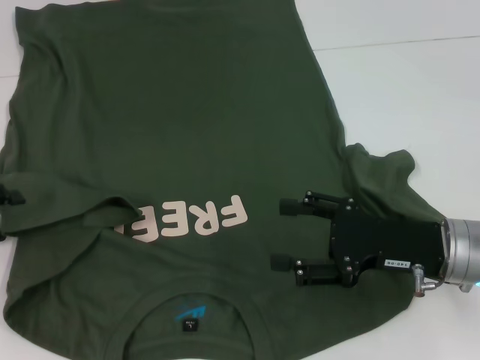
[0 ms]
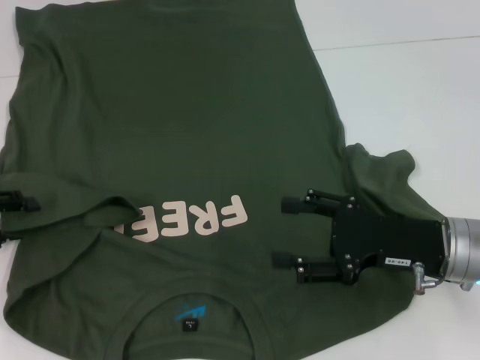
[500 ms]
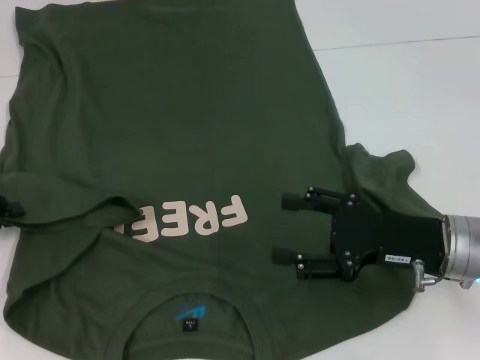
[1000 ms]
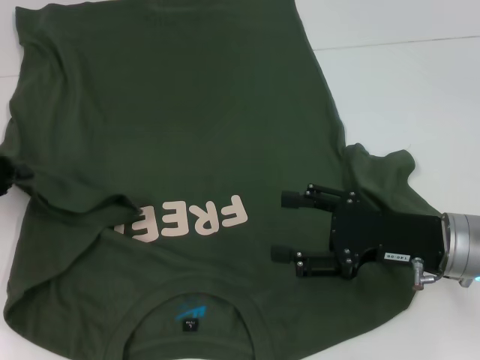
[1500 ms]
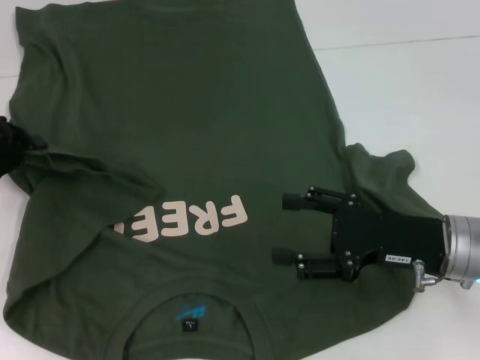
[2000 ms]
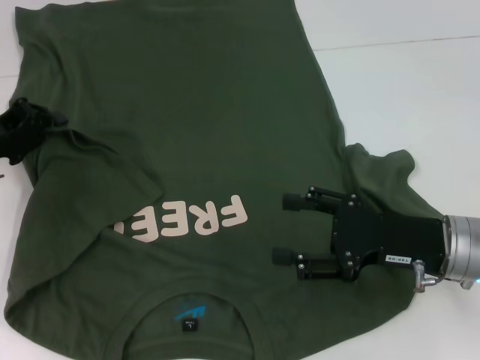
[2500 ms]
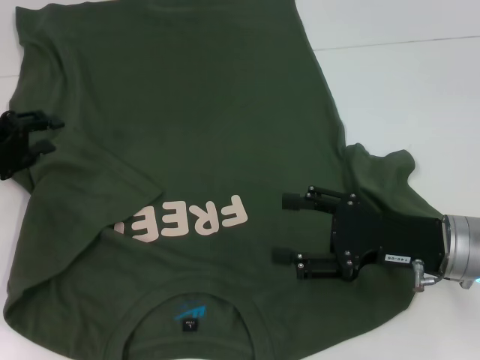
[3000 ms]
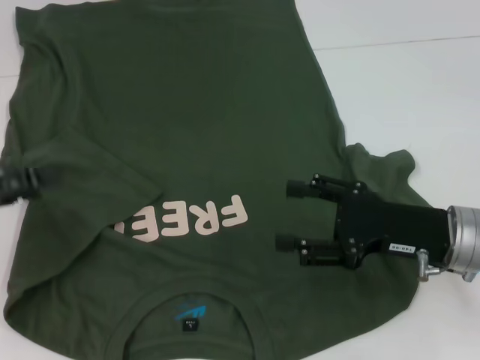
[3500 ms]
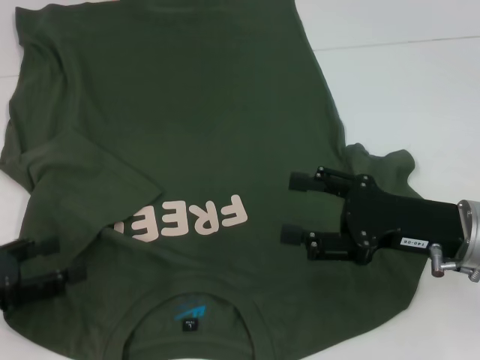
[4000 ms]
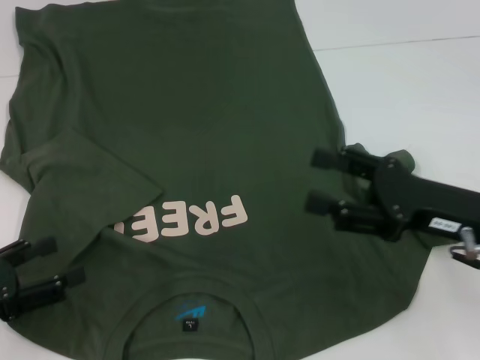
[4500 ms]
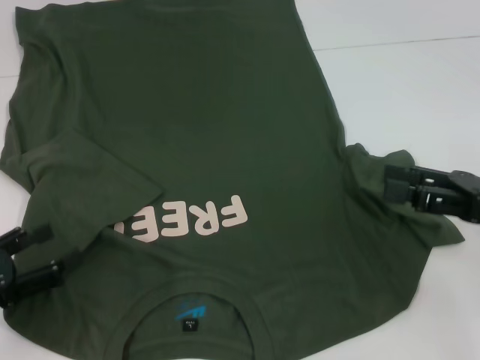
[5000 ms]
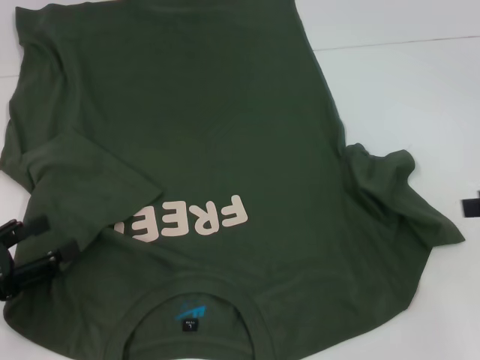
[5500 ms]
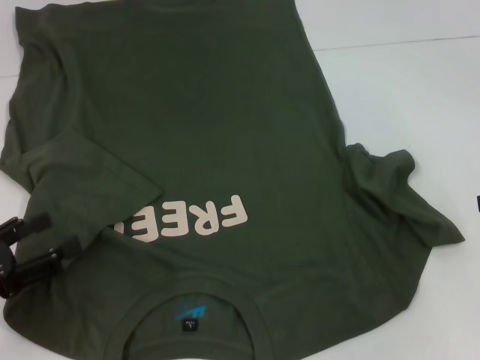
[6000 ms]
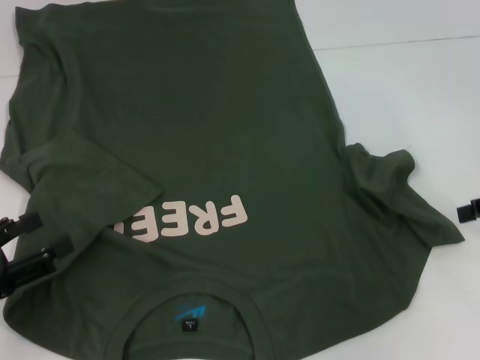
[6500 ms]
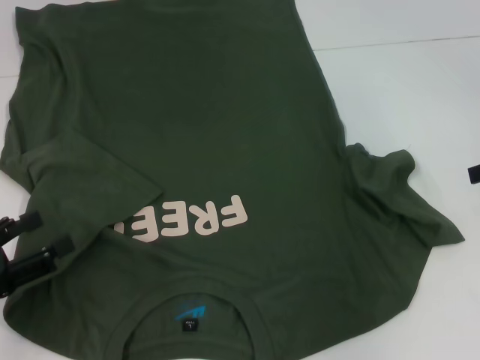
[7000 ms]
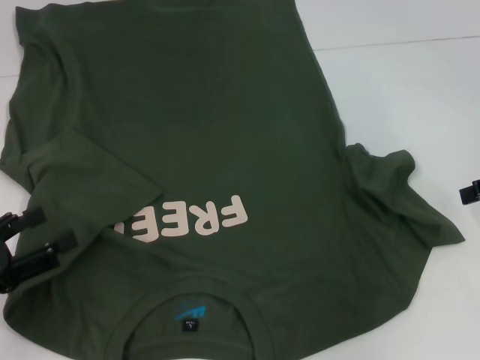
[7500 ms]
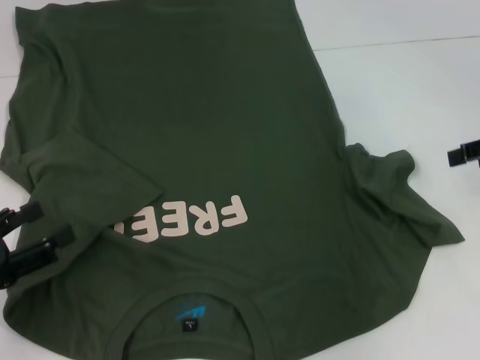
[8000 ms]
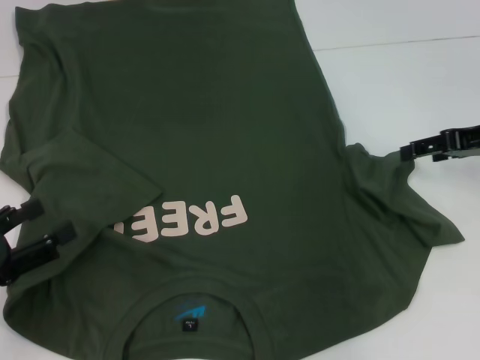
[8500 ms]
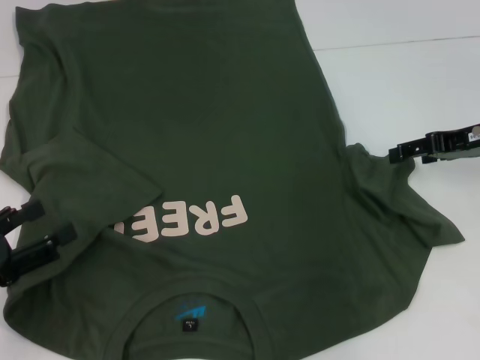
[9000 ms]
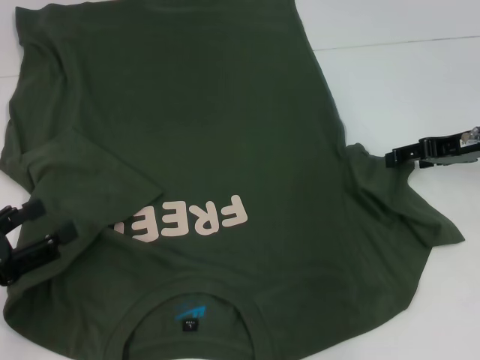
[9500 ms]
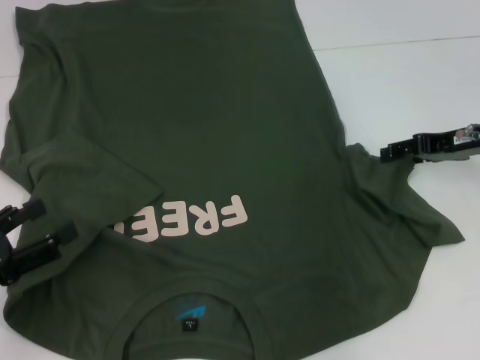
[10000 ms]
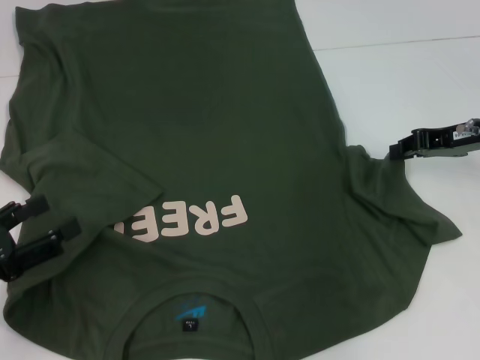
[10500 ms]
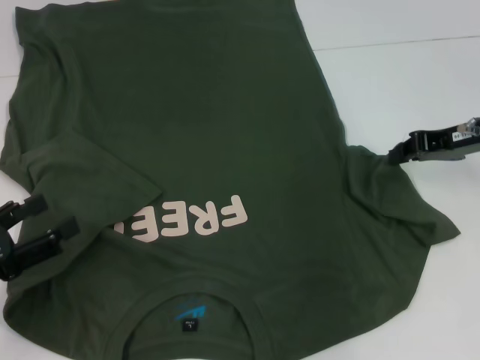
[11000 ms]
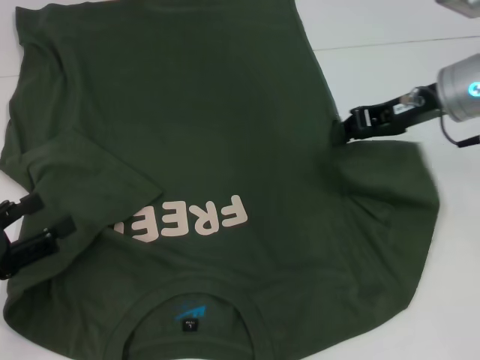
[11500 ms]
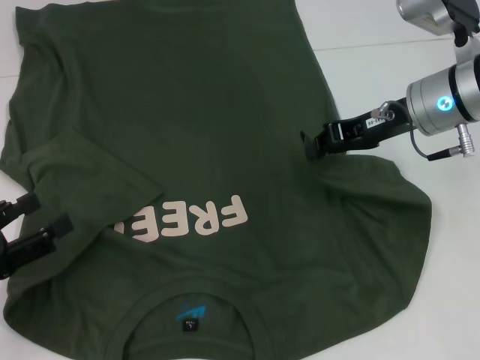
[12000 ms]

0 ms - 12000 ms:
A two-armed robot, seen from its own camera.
Step, 0 ms - 2500 ms: Fold the bottom left sleeve with your left hand.
0 ms - 2000 ms: The left gripper shifts about 5 cm forward, and closes its fingers.
2000 ms - 4000 ms: The left gripper goes about 15 cm backward, and opens up.
4000 ms - 6000 ms: The right gripper heads to the right and upward, covering approximately 20 cm.
8000 ms - 10000 ms: The right gripper travels to the left and downward by approximately 10 cm.
10000 ms - 12000 ms: The right gripper shifts some 10 cm to the left, and closes.

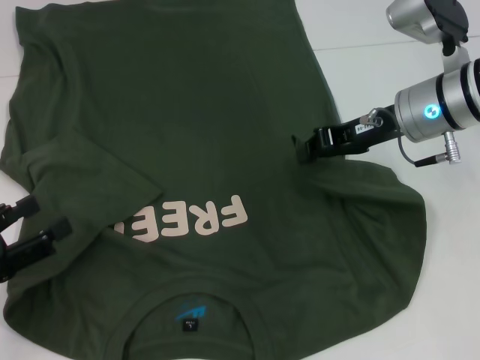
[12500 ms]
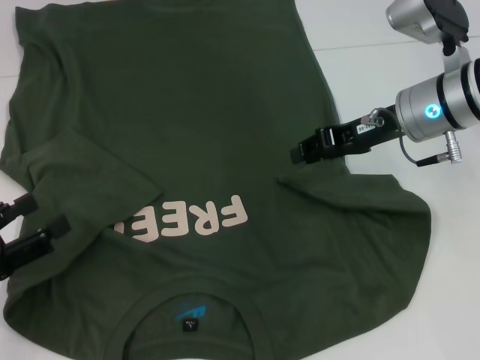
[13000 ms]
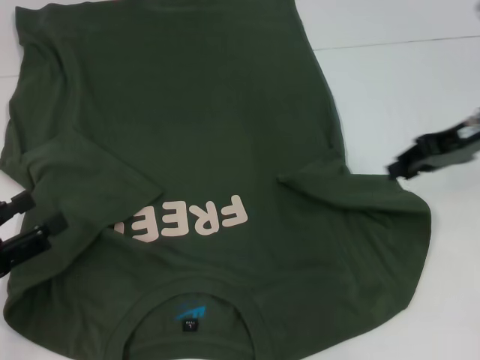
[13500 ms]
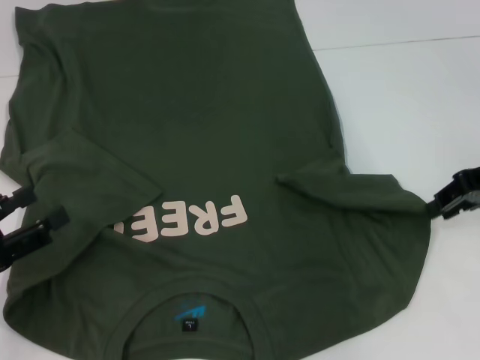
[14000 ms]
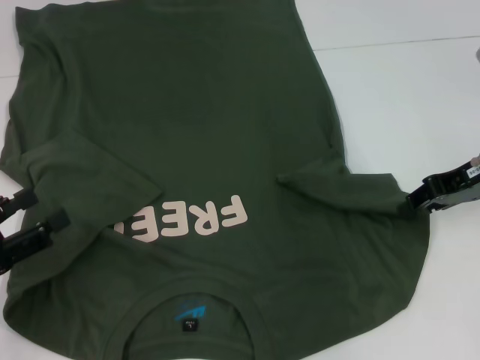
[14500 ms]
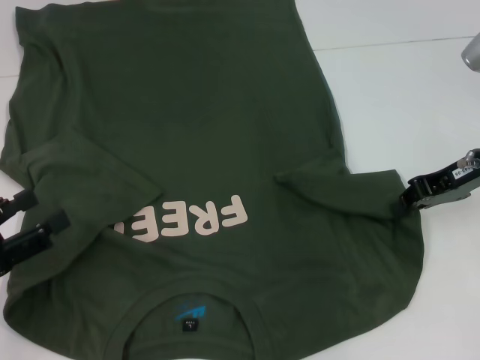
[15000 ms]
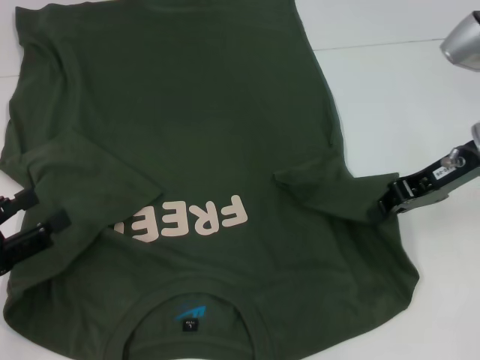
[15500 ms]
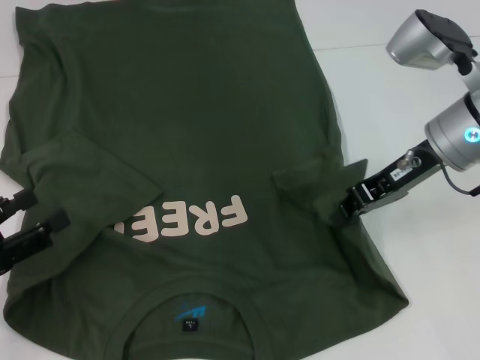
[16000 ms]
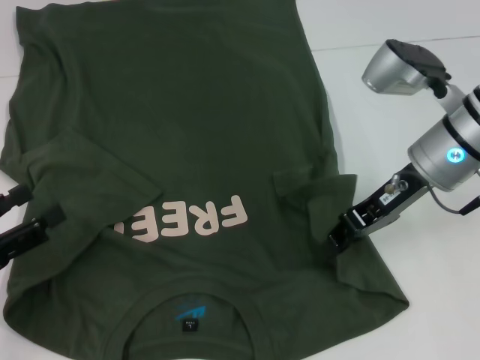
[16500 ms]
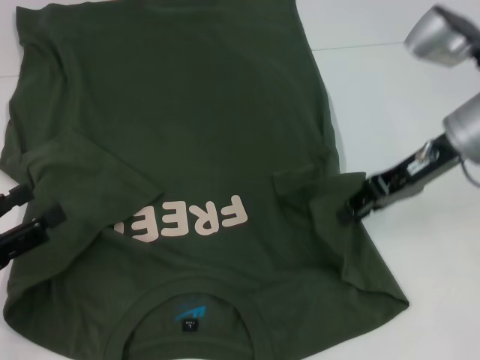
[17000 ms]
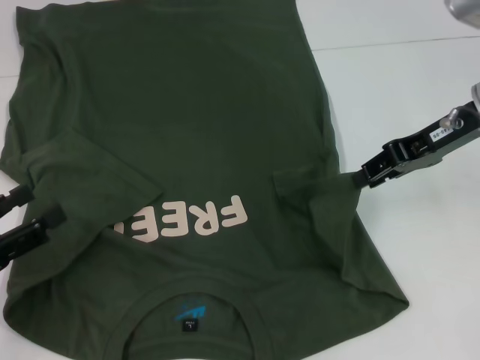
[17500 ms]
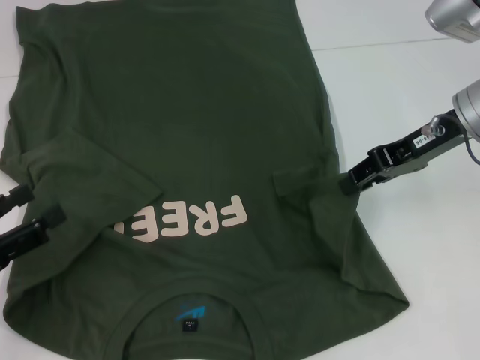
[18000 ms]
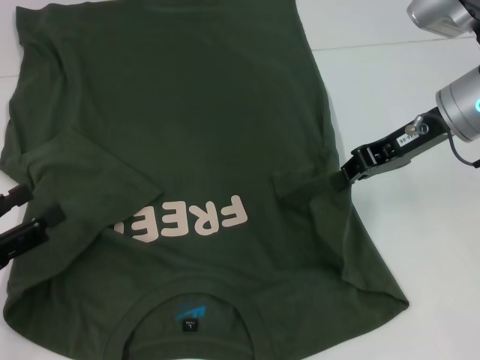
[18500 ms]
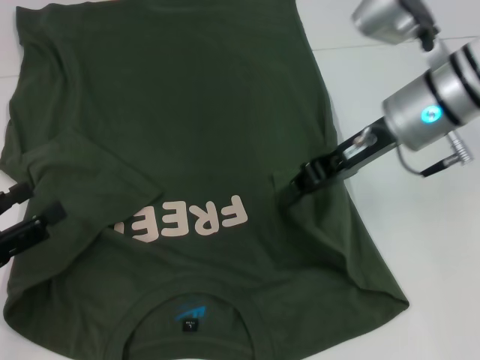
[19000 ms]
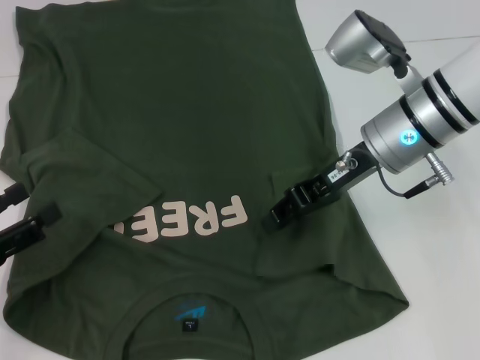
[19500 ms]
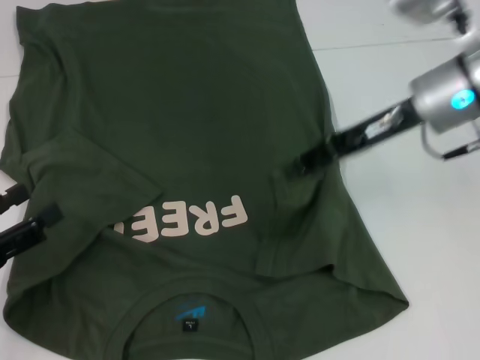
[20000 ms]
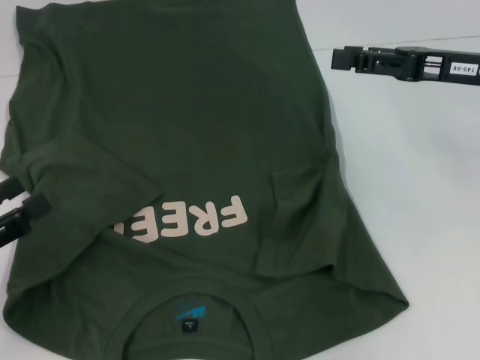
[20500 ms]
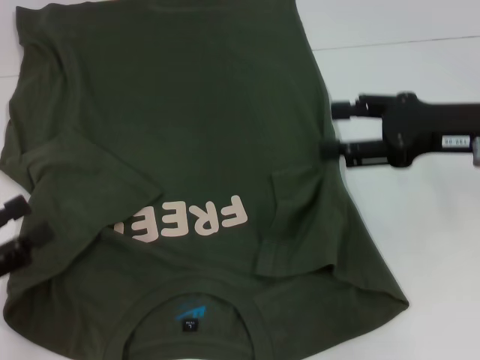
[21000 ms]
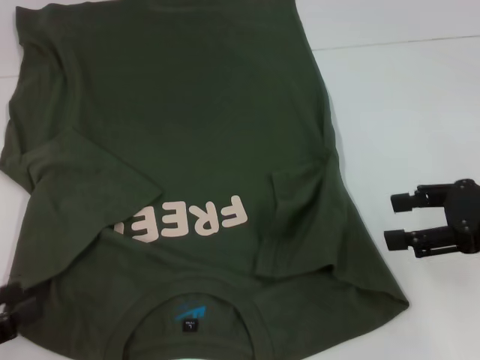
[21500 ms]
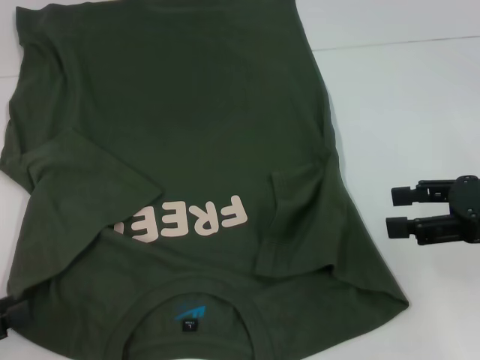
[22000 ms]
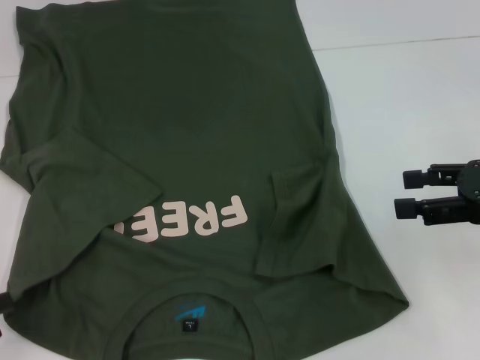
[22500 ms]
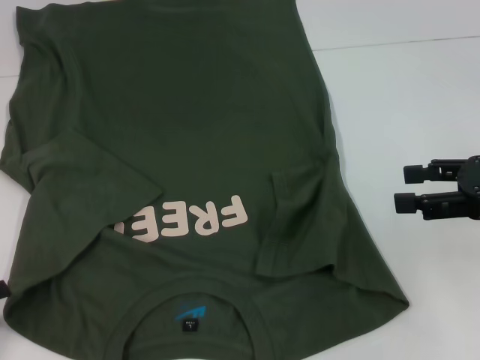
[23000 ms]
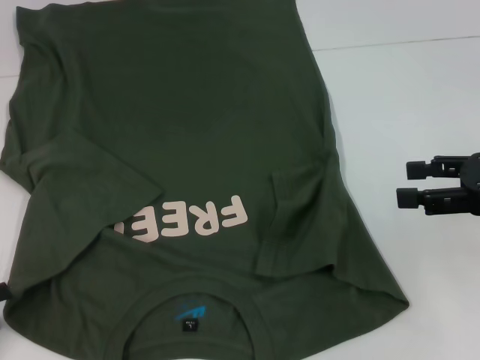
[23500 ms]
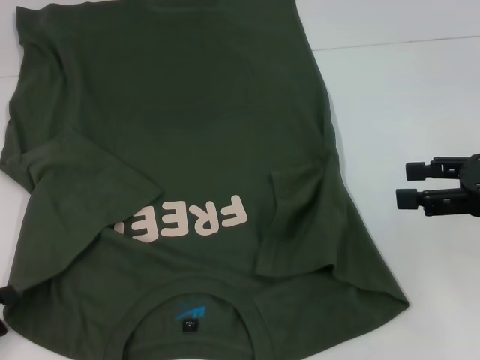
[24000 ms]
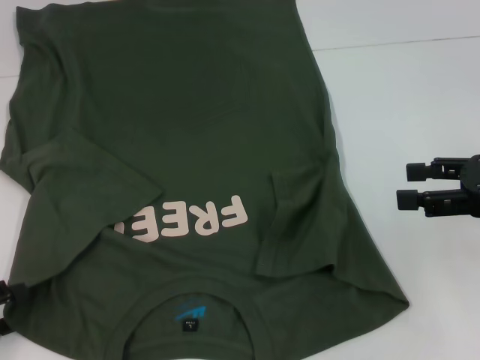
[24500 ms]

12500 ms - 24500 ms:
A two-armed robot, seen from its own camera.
Step, 12500 ms - 19500 ms: Fold the bottom right sleeve with your right hand.
12500 ms - 14500 ms: The right gripper goes roughly 10 cm to the right.
14500 ms - 16500 ms: The right gripper travels to the left by approximately 10 cm.
18500 ms - 20500 ms: The right gripper shifts about 5 cm to the right, and opens.
20500 ms - 22500 ms: The left gripper shifts by about 5 cm; the right gripper travels backward by some 10 cm, and opens.
22500 ms - 24500 ms: The grippers move only a little.

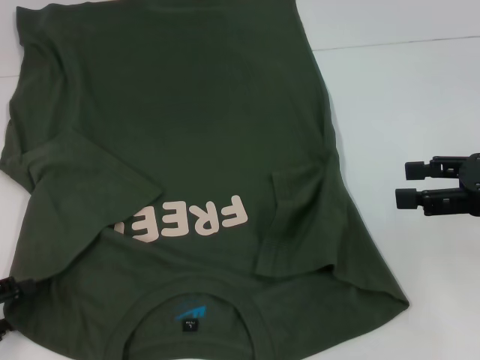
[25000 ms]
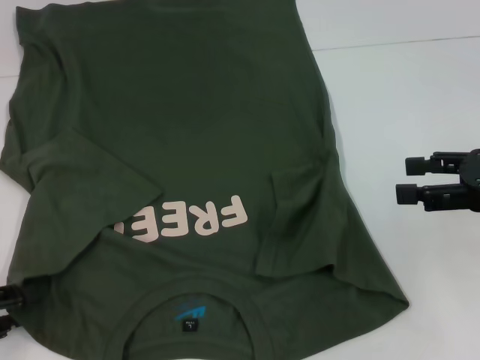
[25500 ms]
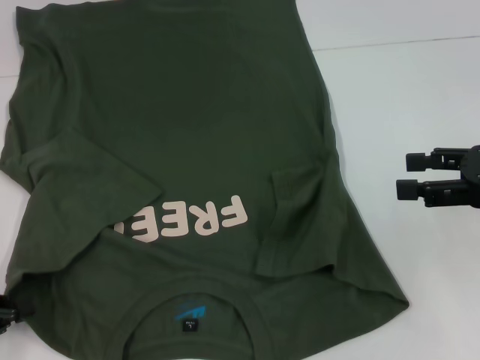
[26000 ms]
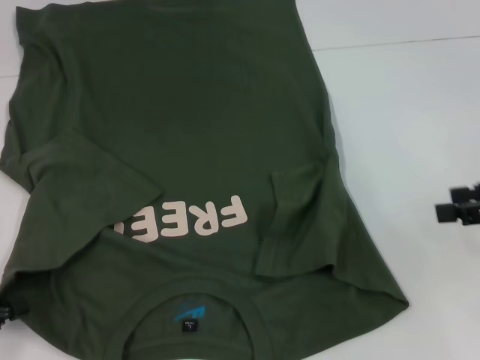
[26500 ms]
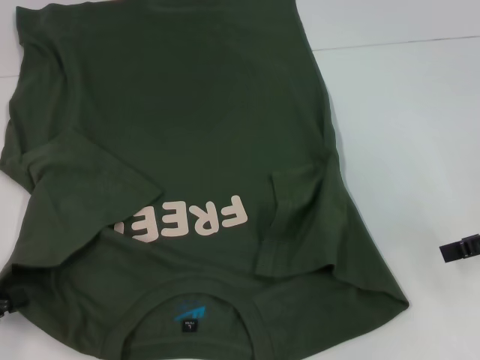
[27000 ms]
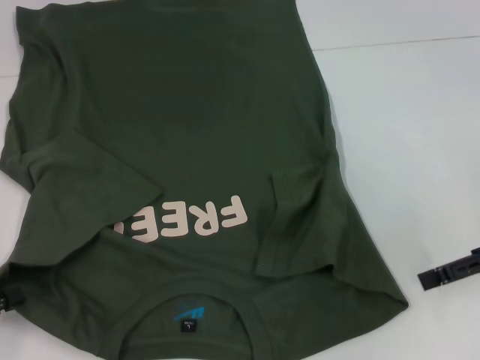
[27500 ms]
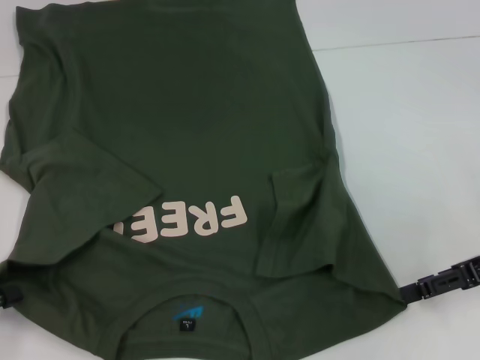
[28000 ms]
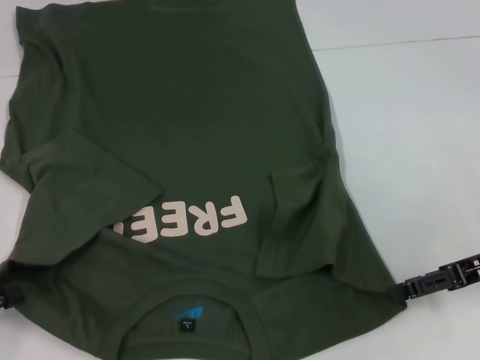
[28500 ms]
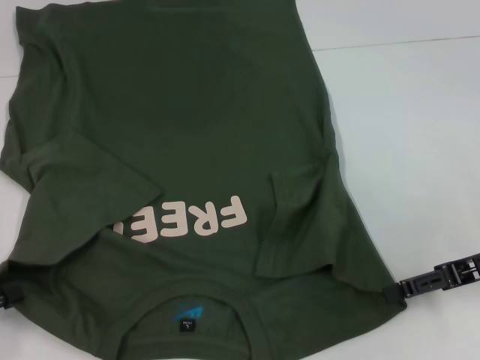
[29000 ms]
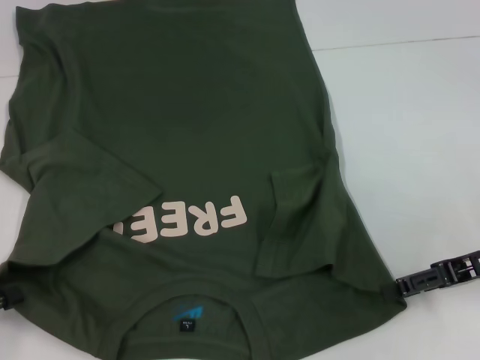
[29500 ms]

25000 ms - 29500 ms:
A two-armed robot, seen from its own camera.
25000 ms - 27000 ms: The left gripper closes its fingers.
27000 ms - 29500 ms: The right gripper travels downward by about 5 cm.
